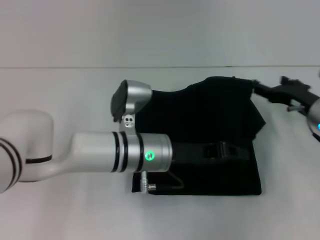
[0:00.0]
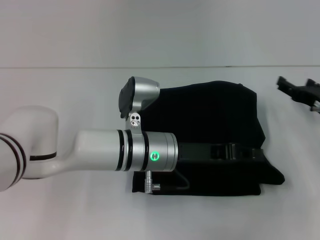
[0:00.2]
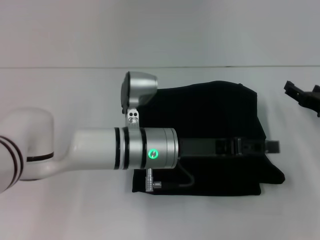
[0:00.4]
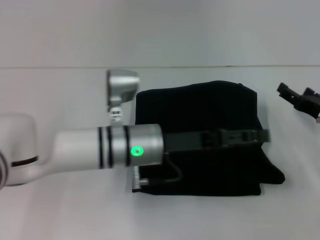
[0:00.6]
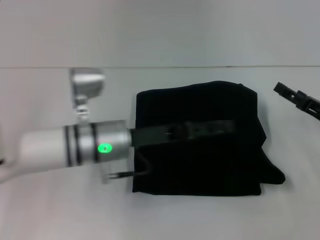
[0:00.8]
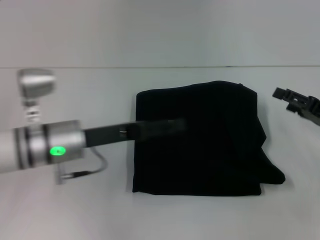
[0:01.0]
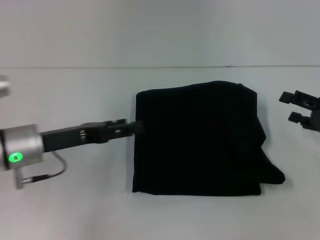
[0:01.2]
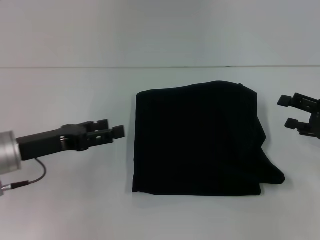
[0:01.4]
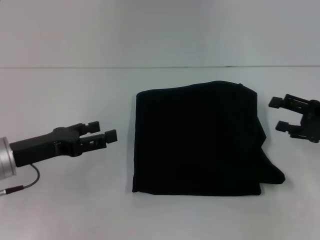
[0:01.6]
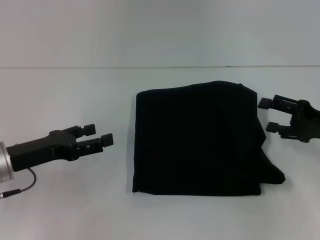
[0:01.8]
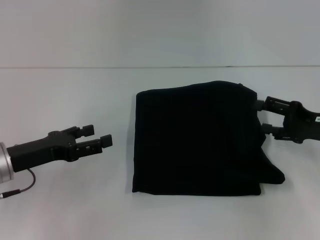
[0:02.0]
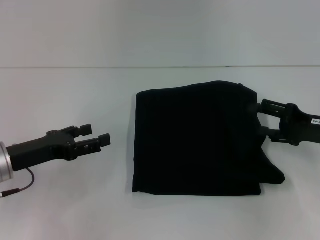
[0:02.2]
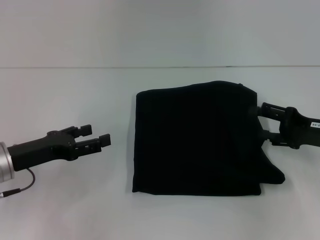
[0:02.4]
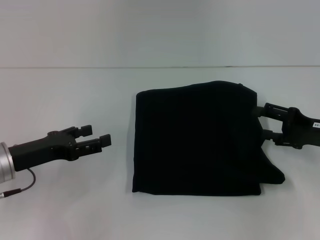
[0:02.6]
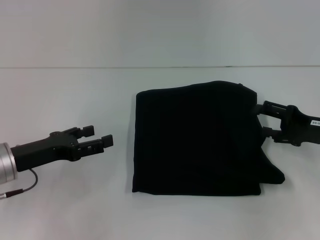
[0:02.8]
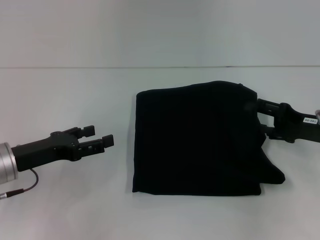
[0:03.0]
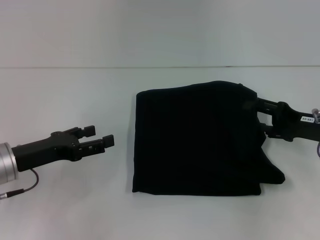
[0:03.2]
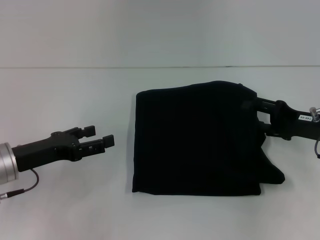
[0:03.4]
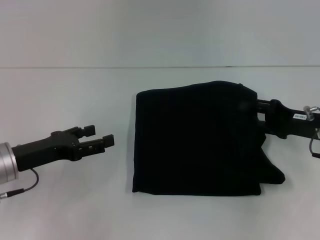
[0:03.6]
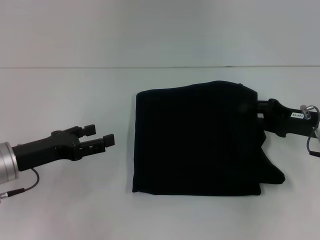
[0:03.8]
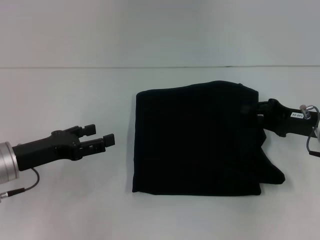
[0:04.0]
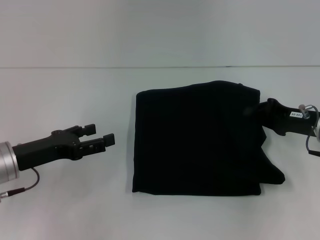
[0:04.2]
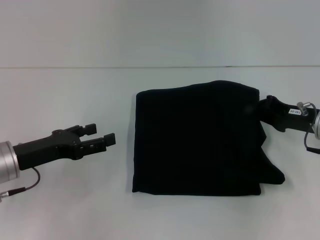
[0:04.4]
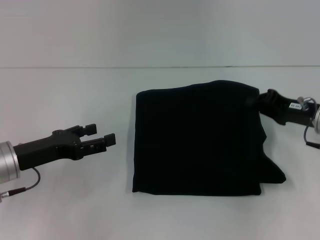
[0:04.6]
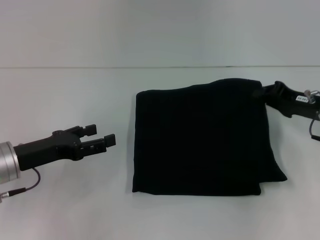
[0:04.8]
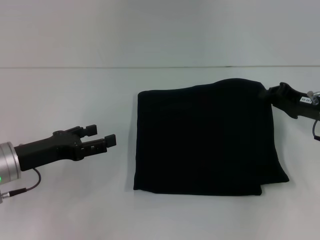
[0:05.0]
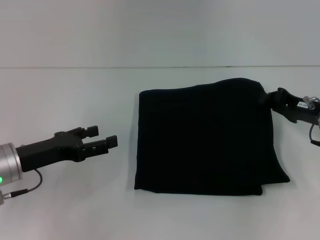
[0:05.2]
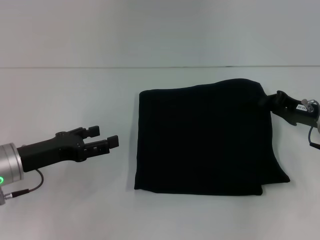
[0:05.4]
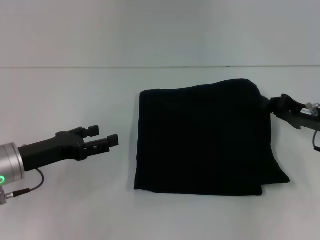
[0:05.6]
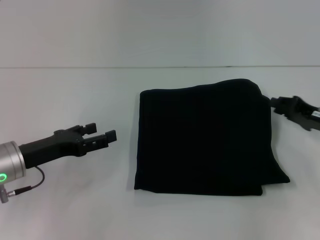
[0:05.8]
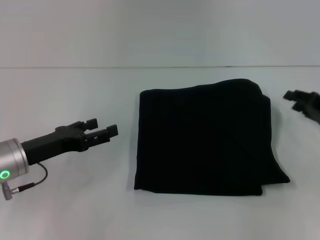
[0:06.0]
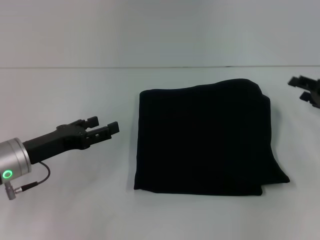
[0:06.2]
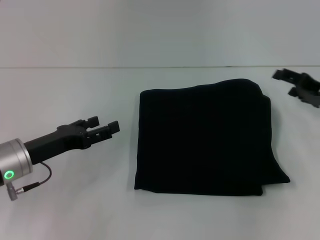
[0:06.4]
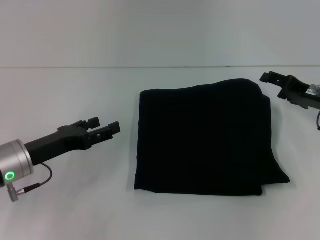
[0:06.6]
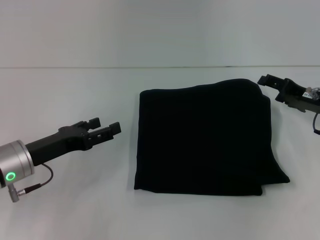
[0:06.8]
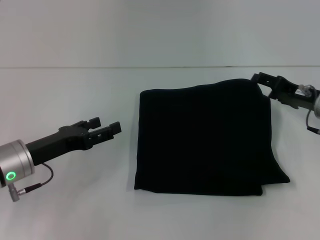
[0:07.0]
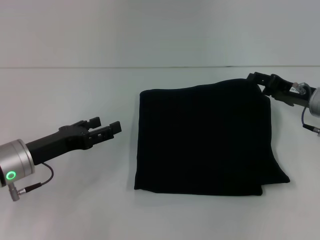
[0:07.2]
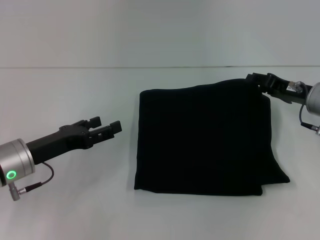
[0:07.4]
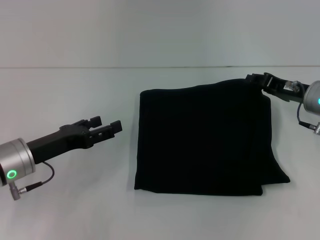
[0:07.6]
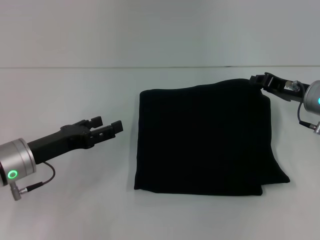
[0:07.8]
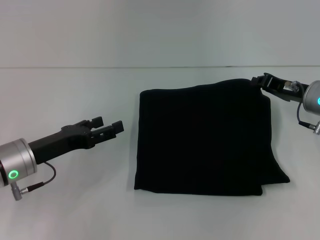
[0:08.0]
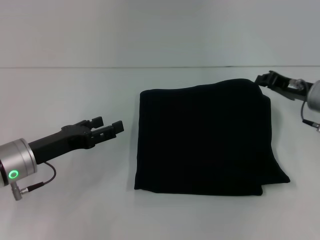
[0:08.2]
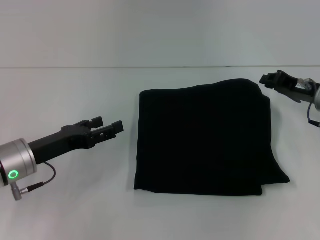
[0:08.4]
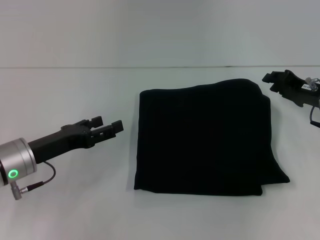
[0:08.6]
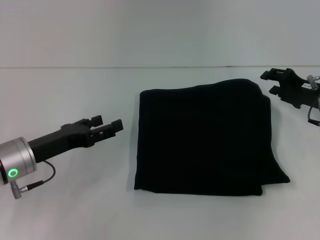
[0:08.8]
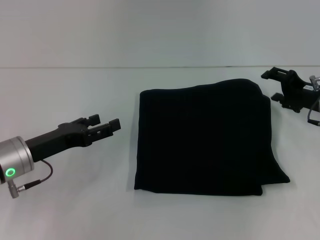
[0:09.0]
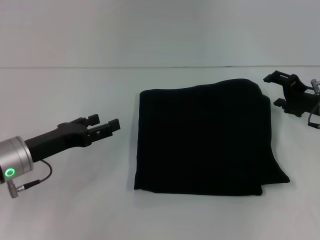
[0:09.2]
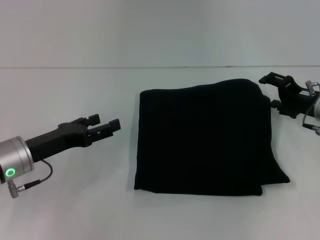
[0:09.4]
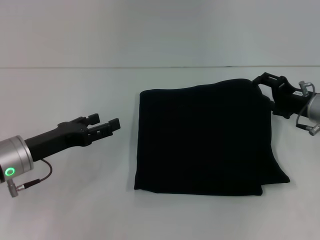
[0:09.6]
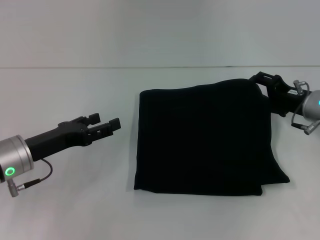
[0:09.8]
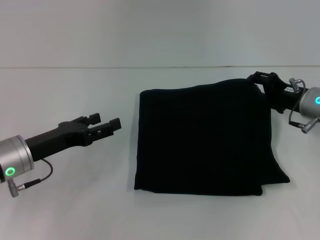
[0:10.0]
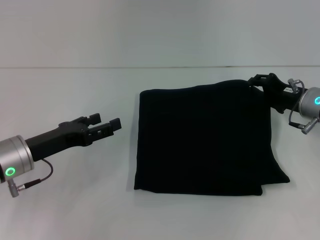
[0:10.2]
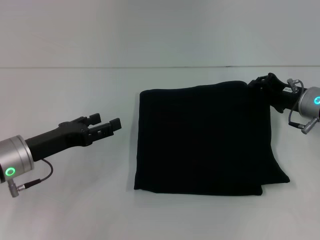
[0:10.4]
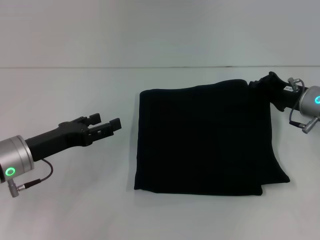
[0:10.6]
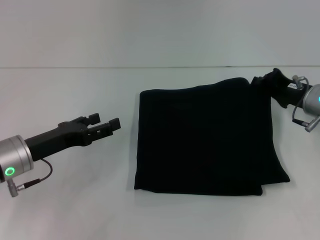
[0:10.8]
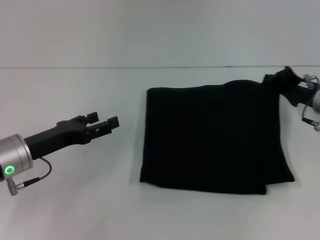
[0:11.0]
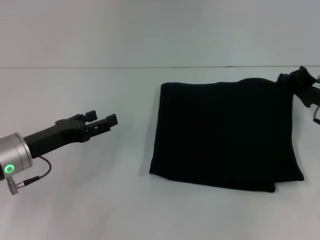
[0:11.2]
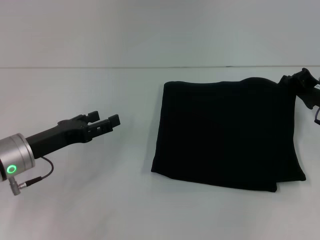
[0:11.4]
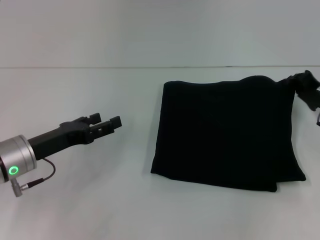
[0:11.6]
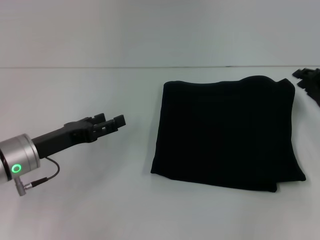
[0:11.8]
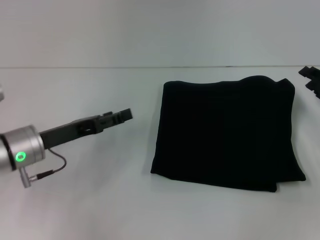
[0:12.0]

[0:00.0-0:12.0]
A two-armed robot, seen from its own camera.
0:00.0 to 0:01.6: The right gripper shifts about 10 cm to the right and backward, while the left gripper goes about 20 cm to the left, and opens up.
0:01.6 to 0:03.0: There are only small adjustments of the grippers.
0:03.0 to 0:04.4: The right gripper closes.
0:04.4 to 0:06.0: The right gripper goes roughly 5 cm to the right.
0:06.0 to 0:07.6: The right gripper goes about 10 cm to the left and forward, and opens and closes again.
0:07.6 to 0:09.0: The right gripper closes, then reopens.
0:09.0 to 0:10.4: The grippers move only a little.
0:10.4 to 0:12.0: The right gripper goes roughly 5 cm to the right, and closes and opens again.

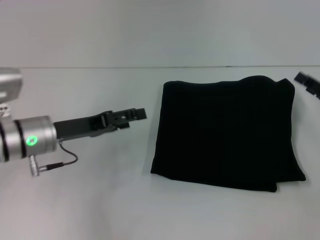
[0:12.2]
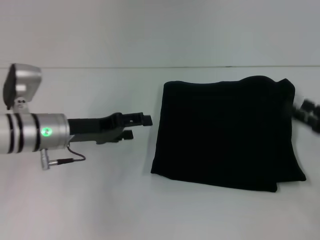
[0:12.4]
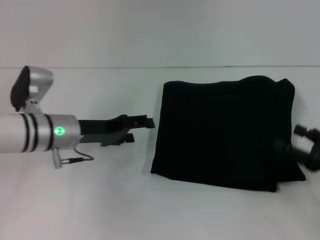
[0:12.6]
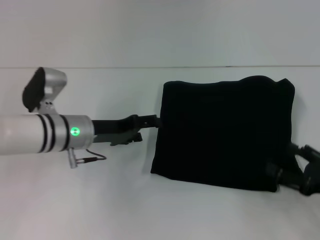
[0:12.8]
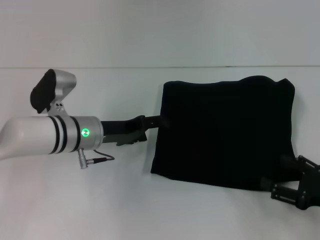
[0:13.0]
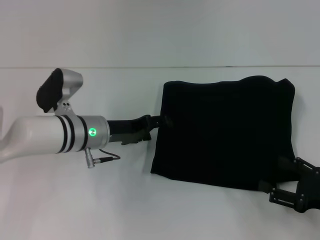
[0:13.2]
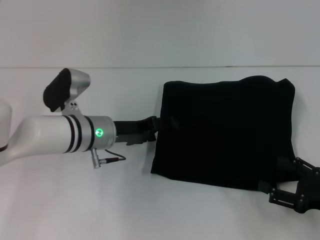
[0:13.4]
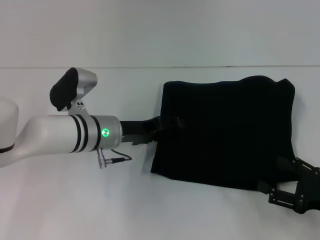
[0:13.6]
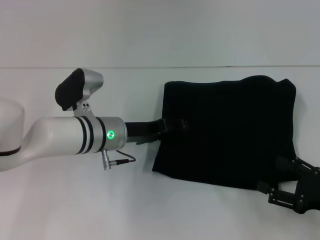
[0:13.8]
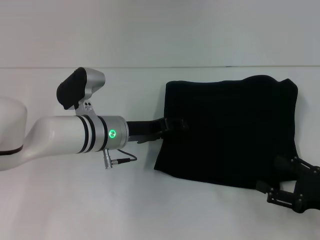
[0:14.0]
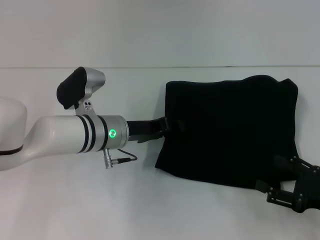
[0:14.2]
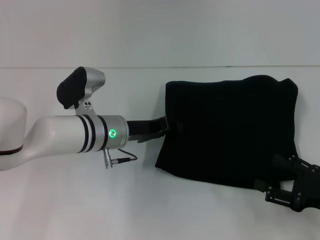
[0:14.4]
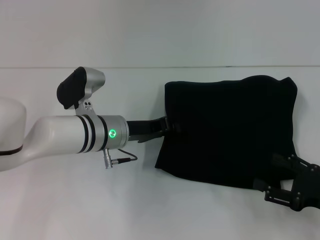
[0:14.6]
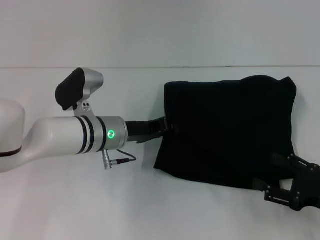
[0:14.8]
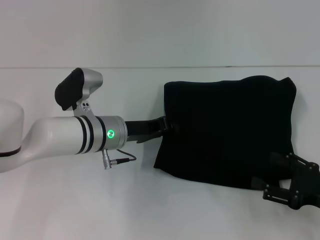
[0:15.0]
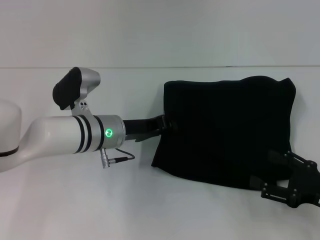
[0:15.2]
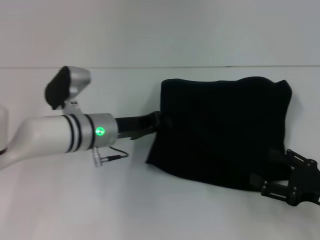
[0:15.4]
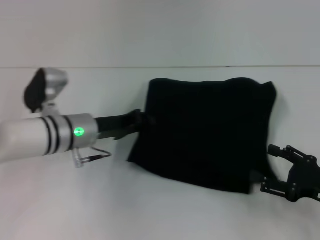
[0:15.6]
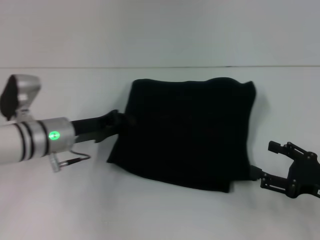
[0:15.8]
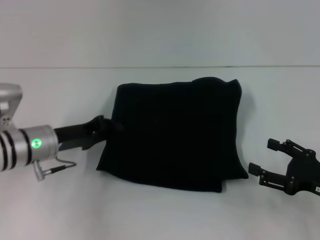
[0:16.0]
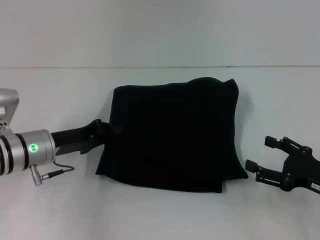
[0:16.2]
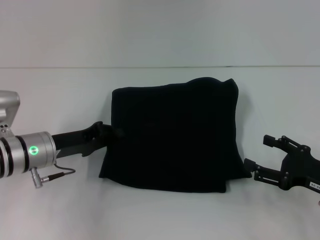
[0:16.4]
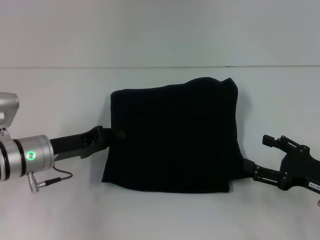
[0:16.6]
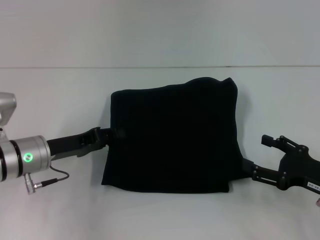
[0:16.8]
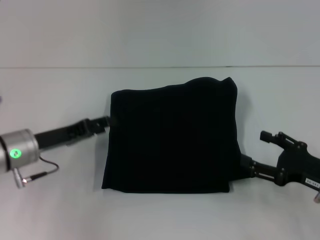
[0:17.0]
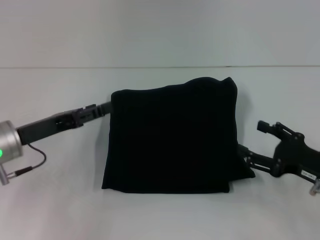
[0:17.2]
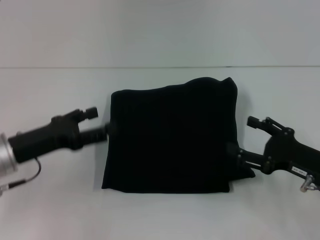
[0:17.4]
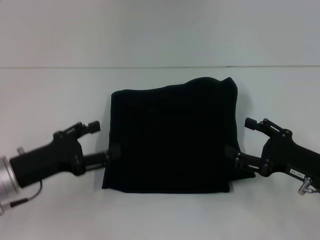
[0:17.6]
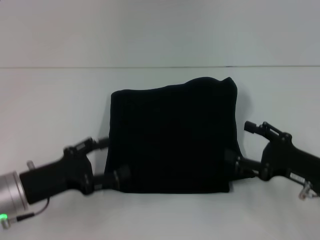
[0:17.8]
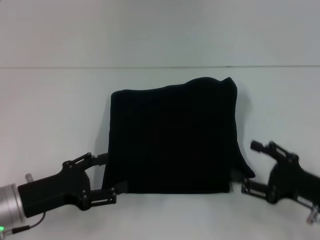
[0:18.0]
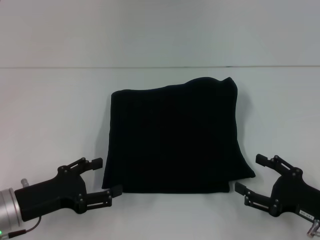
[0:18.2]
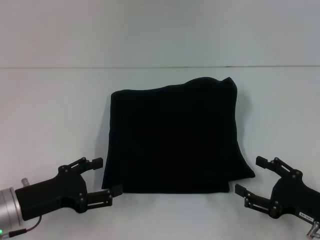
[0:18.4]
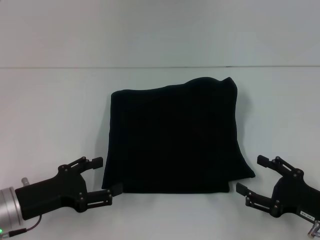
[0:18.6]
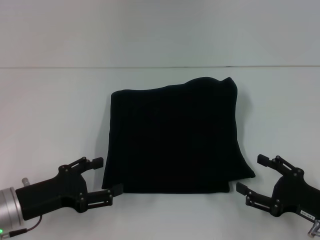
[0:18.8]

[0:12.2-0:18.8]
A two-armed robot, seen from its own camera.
0:12.2 to 0:13.8: The left gripper heads to the right, covering some 10 cm; the right gripper goes some 10 cm backward, and opens up.
0:13.8 to 0:15.4: The left gripper closes.
0:15.4 to 0:17.2: The left gripper is displaced to the left and backward by approximately 15 cm, and opens its fingers.
0:17.2 to 0:18.8: The left gripper shifts roughly 10 cm backward; the right gripper changes place by roughly 5 cm.

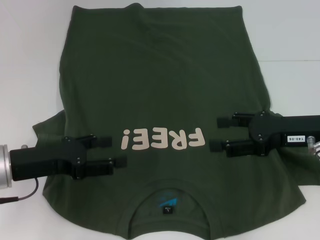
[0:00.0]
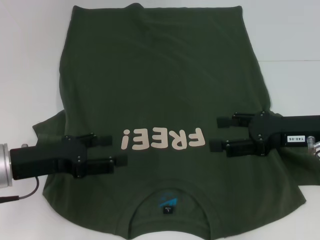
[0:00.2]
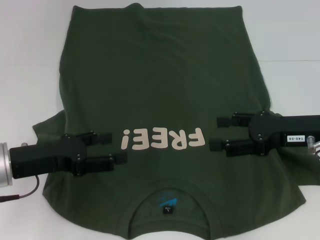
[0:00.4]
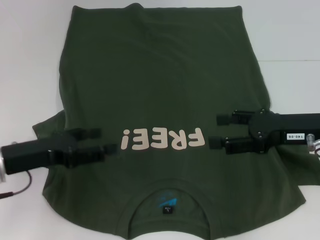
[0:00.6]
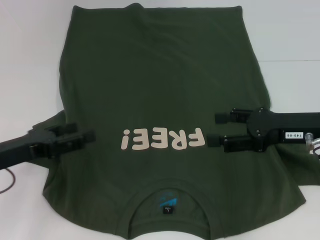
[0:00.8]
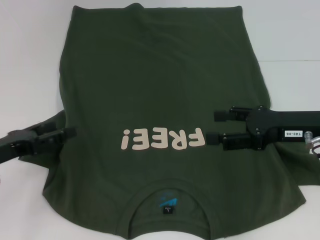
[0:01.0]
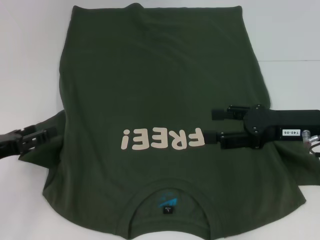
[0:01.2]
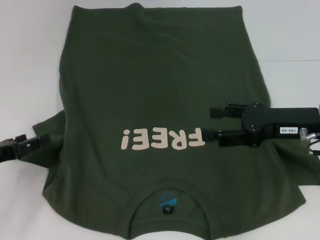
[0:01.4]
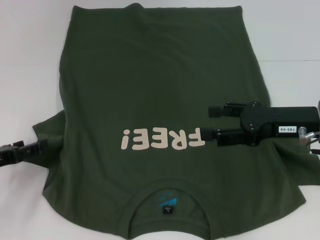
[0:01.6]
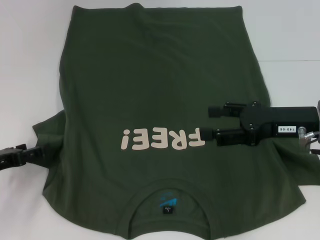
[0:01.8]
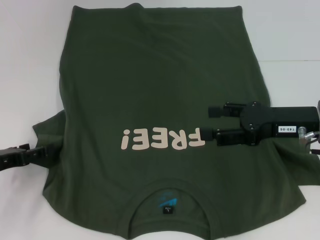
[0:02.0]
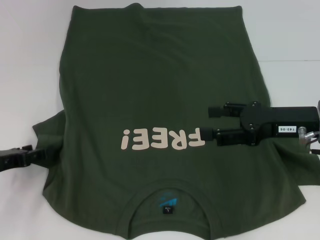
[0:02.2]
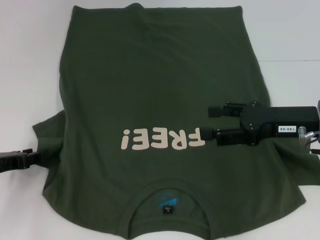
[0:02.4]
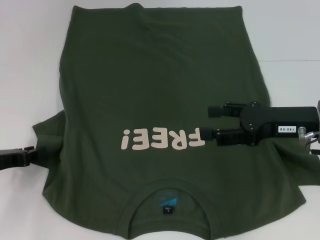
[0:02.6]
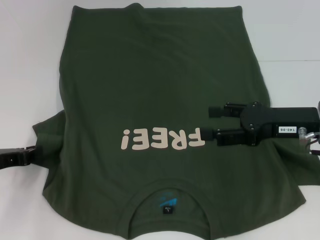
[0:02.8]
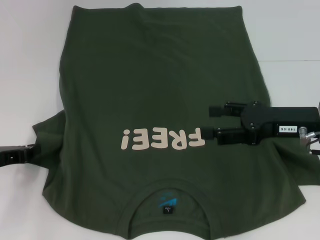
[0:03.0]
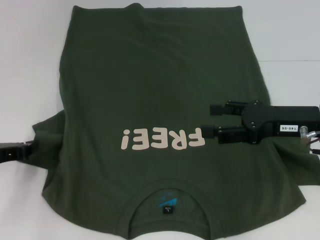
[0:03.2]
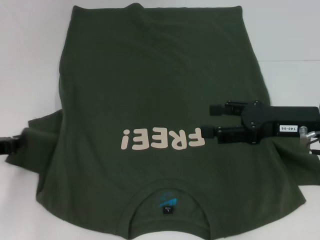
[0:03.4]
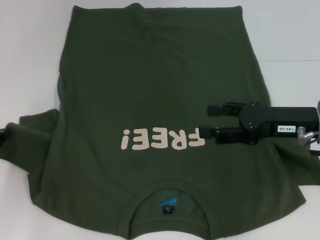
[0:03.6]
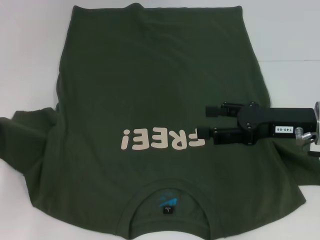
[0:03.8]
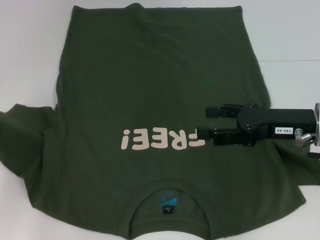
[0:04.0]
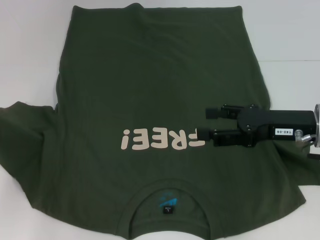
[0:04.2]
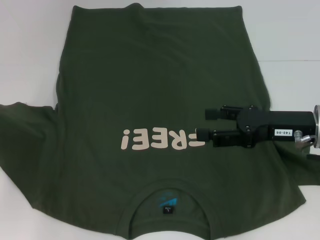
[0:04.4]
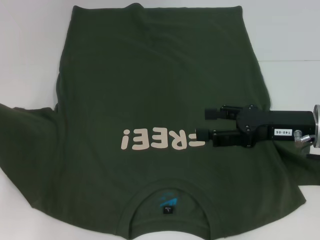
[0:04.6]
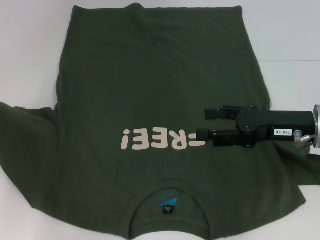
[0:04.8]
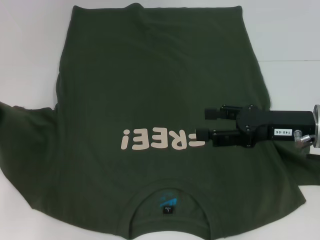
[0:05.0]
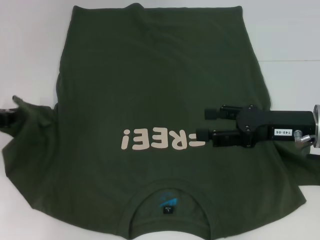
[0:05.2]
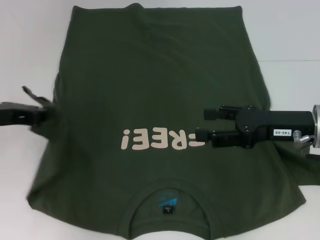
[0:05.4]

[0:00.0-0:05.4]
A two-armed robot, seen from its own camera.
0:00.0 to 0:01.4: The left gripper goes some 10 cm to the left.
0:01.4 to 0:02.8: The left gripper closes.
0:02.8 to 0:04.0: The left gripper moves about 5 cm, and closes its fingers.
0:04.0 to 0:05.4: The left gripper goes roughly 5 cm to the right.
